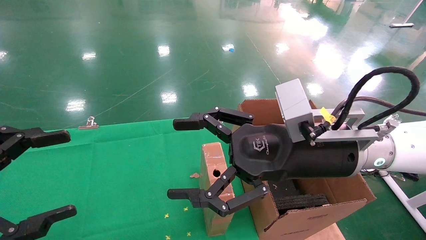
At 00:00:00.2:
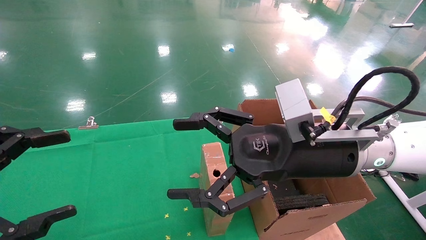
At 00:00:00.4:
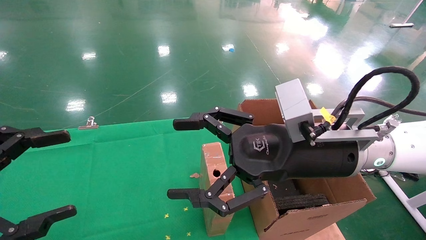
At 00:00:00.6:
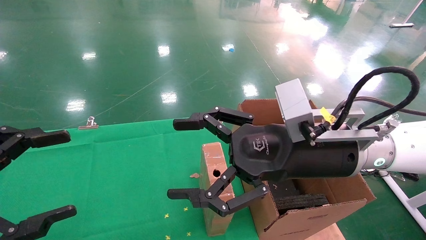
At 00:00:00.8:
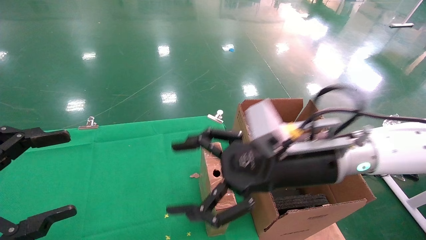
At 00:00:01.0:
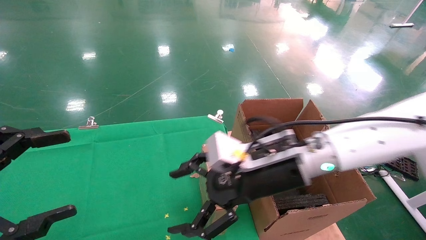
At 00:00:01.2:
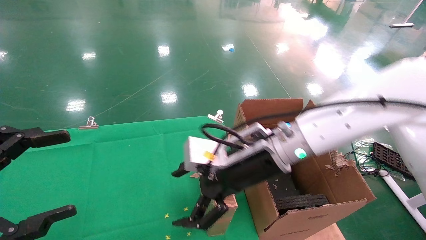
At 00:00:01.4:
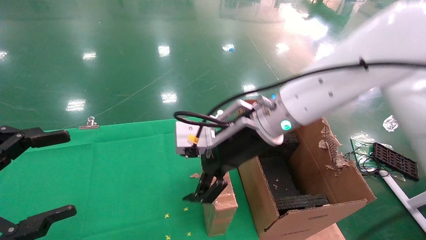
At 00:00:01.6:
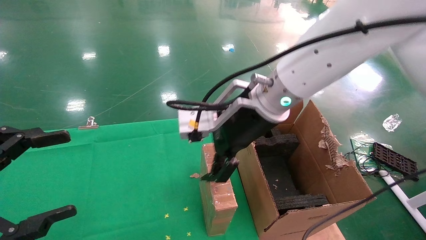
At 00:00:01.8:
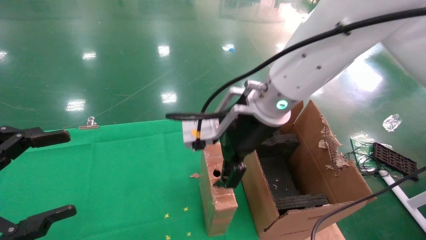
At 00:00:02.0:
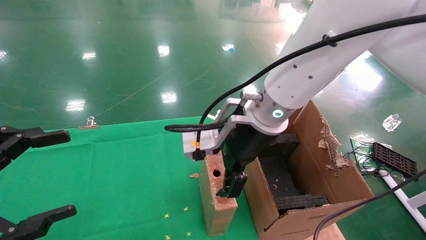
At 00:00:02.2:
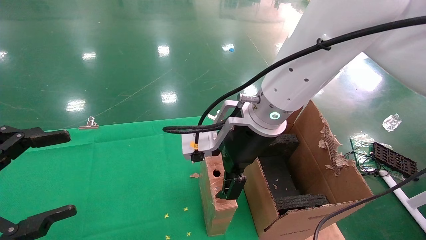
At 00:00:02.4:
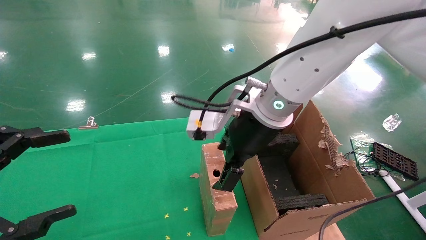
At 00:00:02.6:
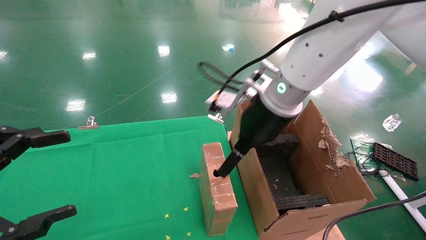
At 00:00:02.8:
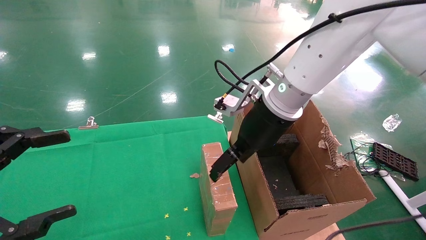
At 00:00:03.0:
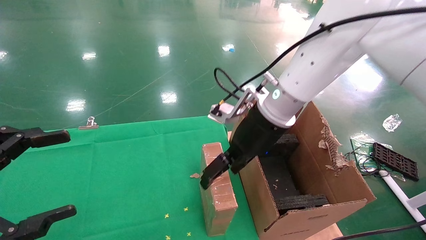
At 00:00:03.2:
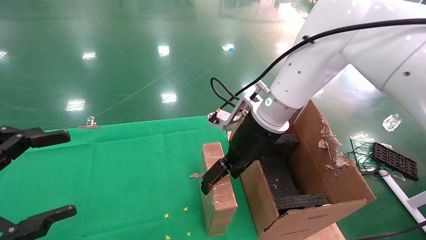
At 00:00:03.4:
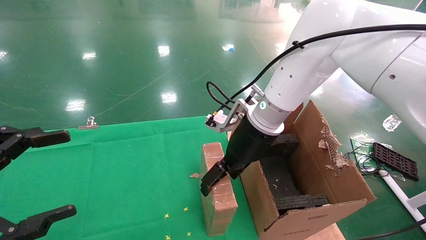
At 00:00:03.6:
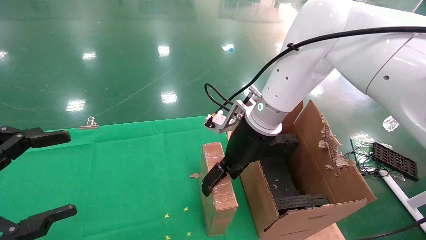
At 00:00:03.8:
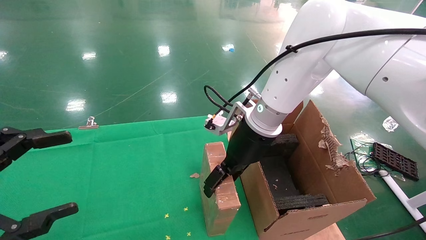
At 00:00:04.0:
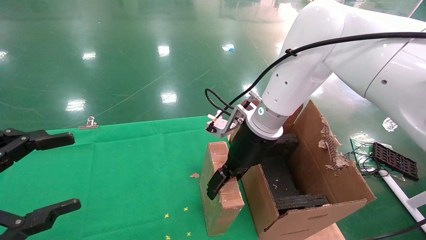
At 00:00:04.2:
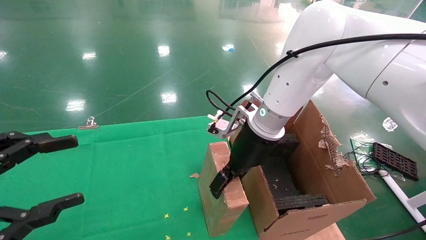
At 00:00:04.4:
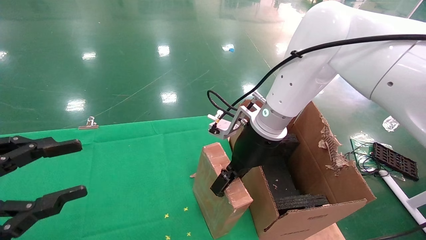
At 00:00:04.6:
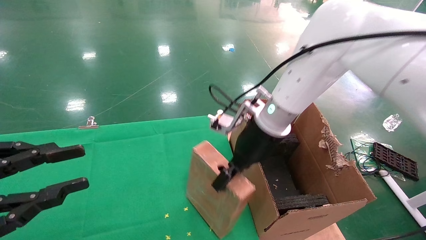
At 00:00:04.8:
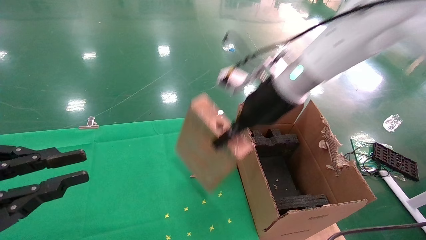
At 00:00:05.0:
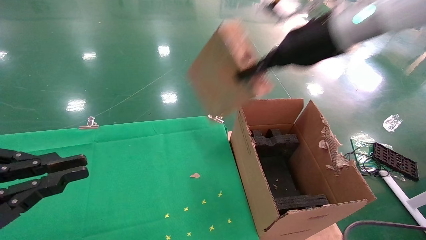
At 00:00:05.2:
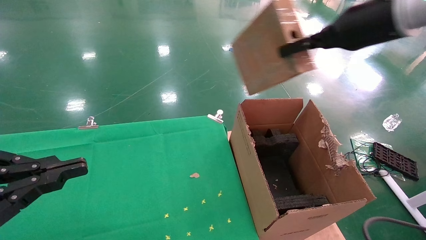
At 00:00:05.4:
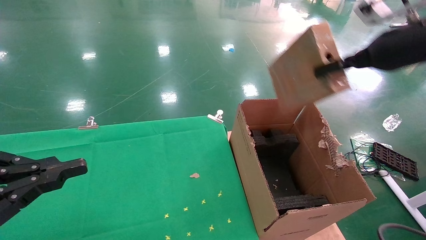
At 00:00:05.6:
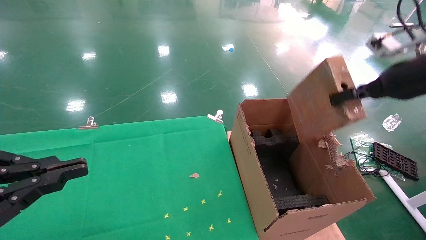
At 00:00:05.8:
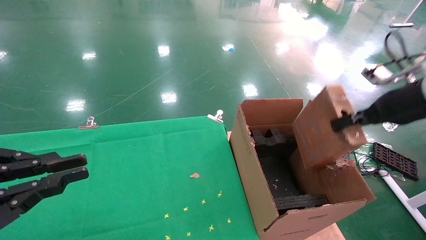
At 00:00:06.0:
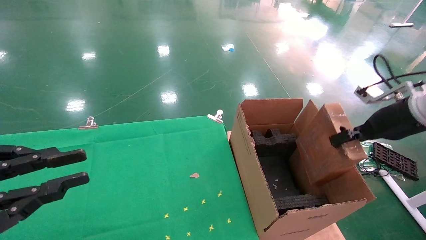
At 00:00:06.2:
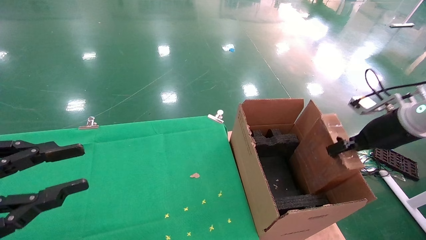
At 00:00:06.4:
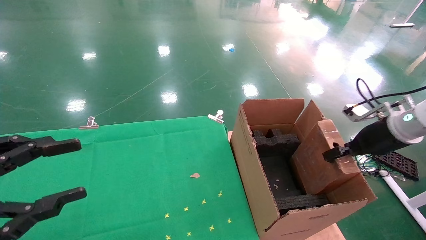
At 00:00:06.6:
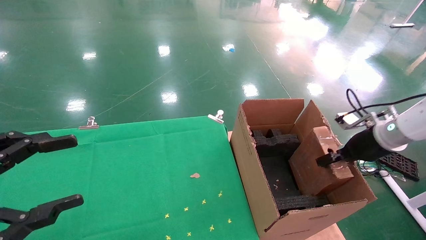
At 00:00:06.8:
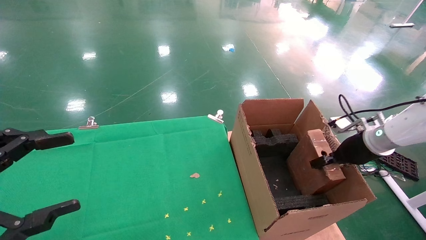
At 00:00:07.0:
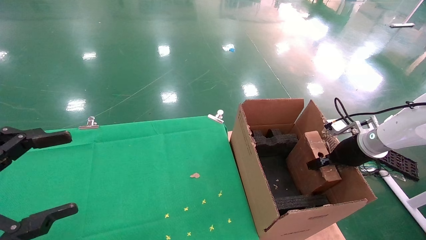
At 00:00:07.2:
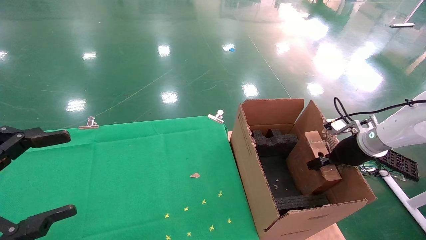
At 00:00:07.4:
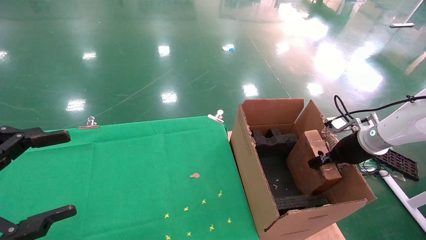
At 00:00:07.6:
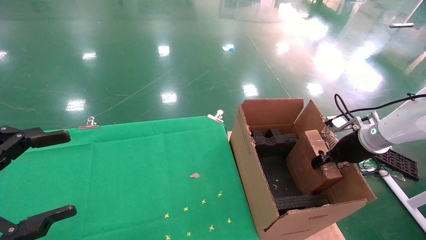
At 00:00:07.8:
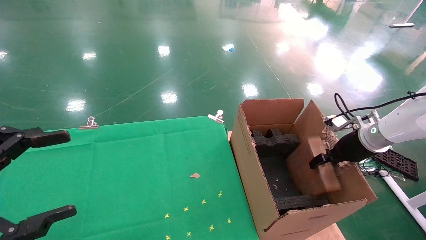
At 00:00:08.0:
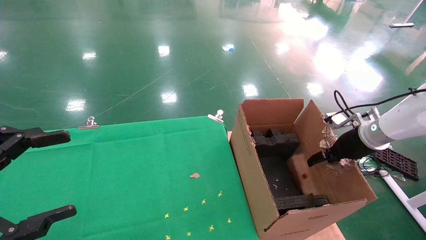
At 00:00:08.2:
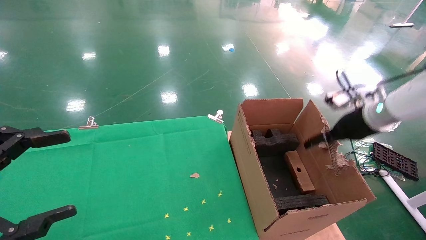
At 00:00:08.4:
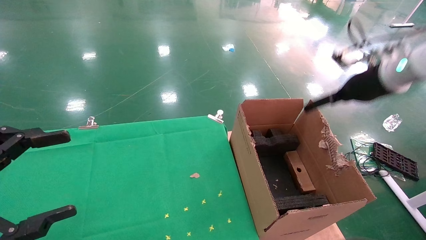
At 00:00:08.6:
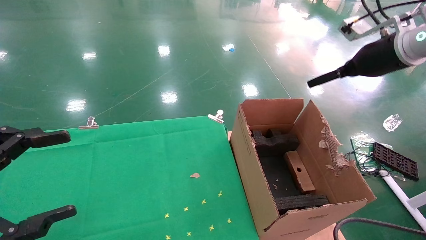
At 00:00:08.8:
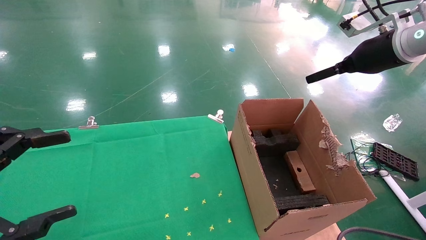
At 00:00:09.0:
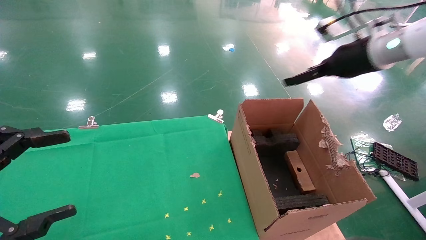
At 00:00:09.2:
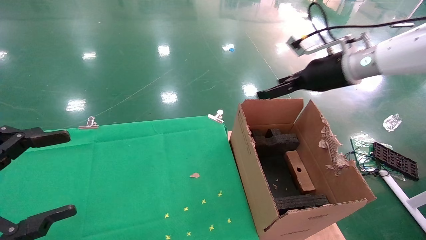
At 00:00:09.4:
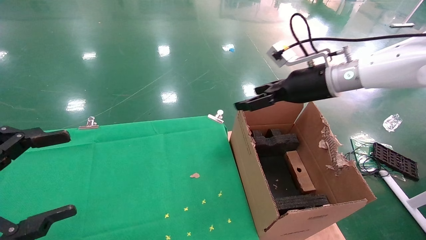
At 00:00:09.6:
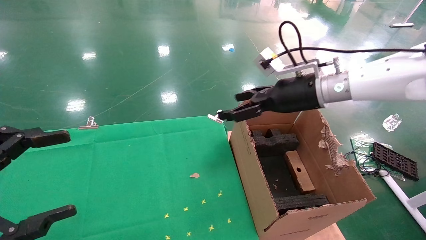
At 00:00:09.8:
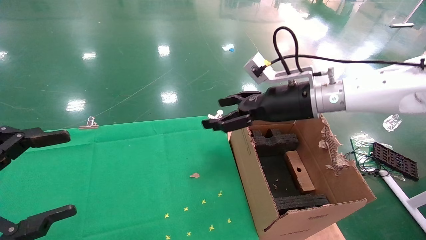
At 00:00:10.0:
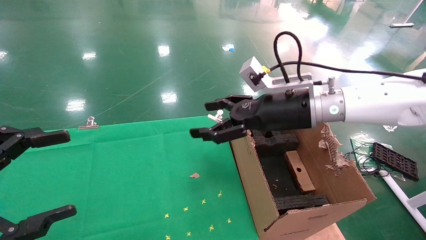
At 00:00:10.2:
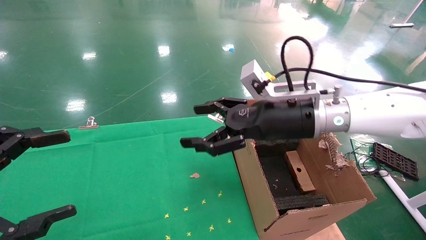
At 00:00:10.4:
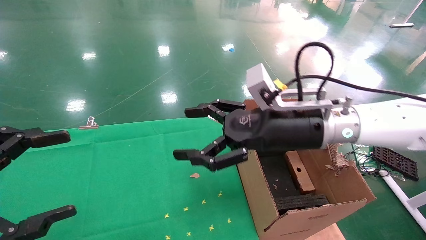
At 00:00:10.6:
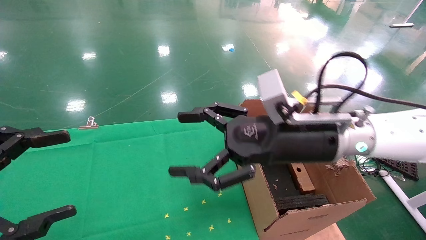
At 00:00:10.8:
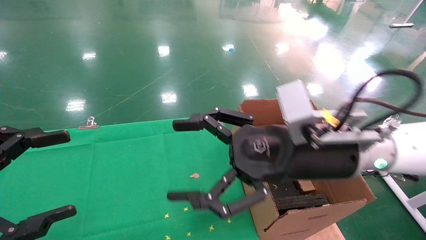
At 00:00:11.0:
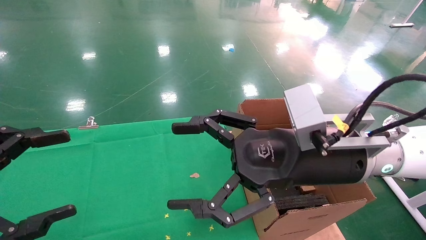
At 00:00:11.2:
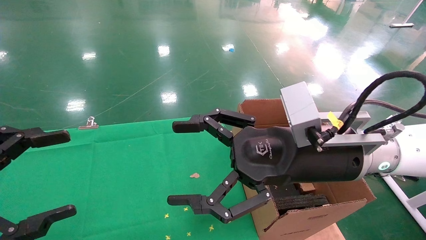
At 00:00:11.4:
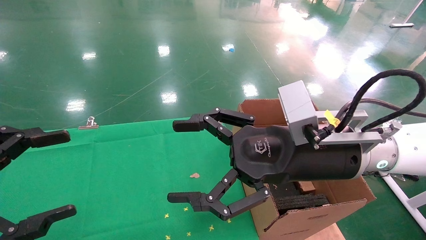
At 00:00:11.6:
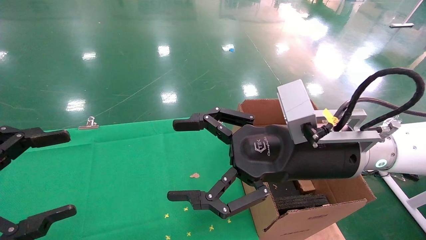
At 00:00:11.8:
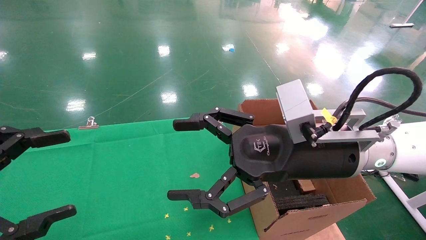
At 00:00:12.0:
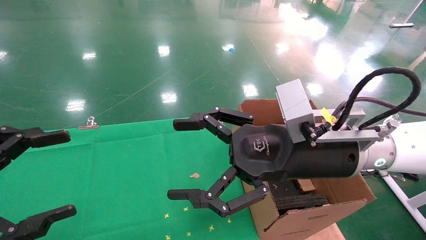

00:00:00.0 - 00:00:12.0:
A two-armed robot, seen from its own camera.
Task of the whole recording: using a robotic arm to pick up a cardboard box and palace it the carton.
Step, 00:00:00.8 - 00:00:04.6: Pick up the mouse and the power cord paper box.
Step, 00:00:04.8 - 00:00:08.0: Place the mouse and the power cord paper box into the container.
00:00:00.0 - 00:00:01.6: The right gripper is displaced to the left and forward by some 10 cm.
00:00:01.6 - 00:00:03.0: The right gripper shifts by about 5 cm.
00:00:03.0 - 00:00:04.4: The left gripper closes up, while the right gripper closes its fingers.
00:00:04.4 - 00:00:06.0: The right gripper heads to the right, covering about 30 cm, and closes. The left gripper closes its fingers.
00:00:06.0 - 00:00:07.6: The right gripper goes about 10 cm downward and forward, while the left gripper opens.
00:00:07.6 - 00:00:09.0: The right gripper moves upward and to the left, approximately 20 cm, and opens its fingers.
00:00:09.0 - 00:00:10.4: The right gripper moves to the left, downward and backward, about 20 cm.
00:00:10.4 - 00:00:12.0: The right gripper travels backward by approximately 5 cm.

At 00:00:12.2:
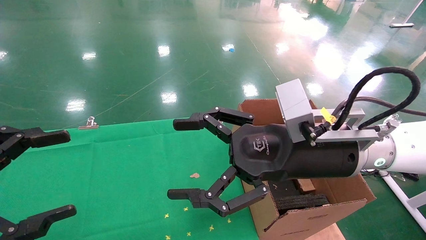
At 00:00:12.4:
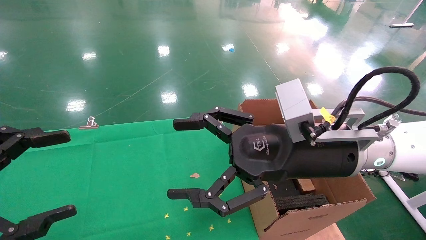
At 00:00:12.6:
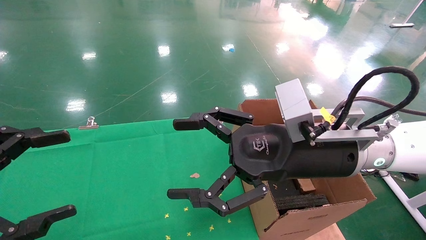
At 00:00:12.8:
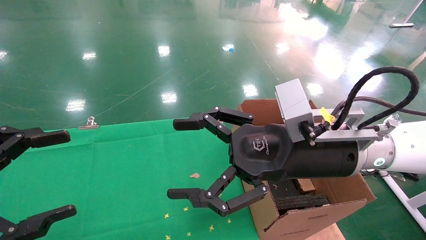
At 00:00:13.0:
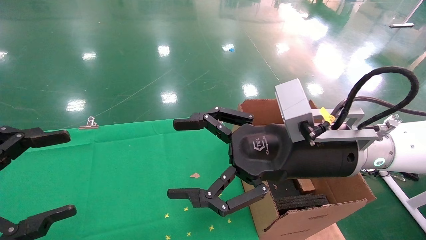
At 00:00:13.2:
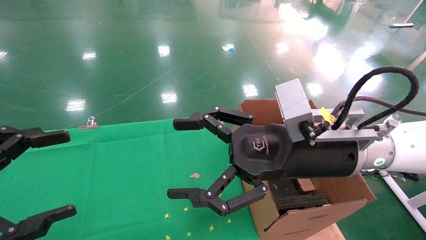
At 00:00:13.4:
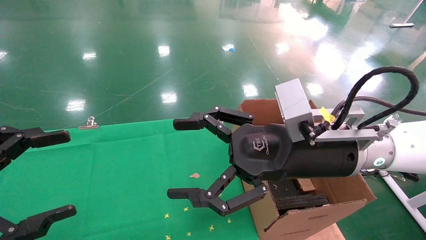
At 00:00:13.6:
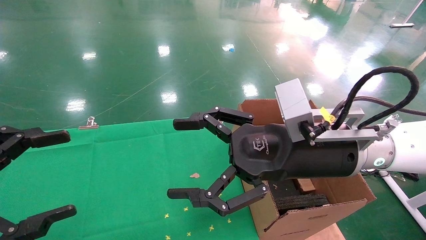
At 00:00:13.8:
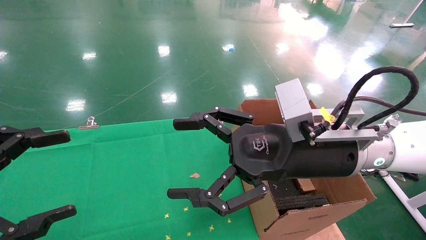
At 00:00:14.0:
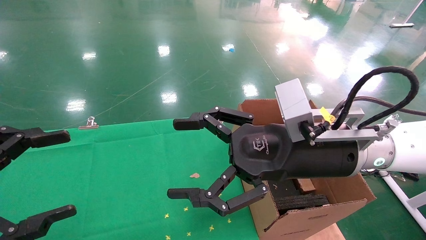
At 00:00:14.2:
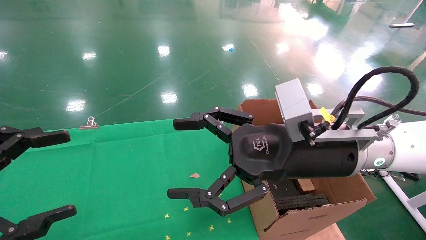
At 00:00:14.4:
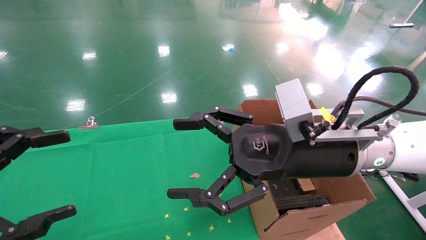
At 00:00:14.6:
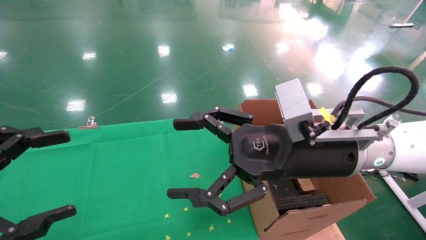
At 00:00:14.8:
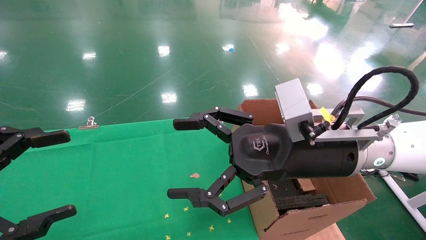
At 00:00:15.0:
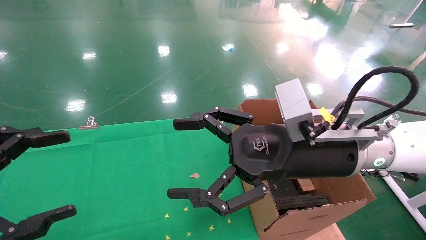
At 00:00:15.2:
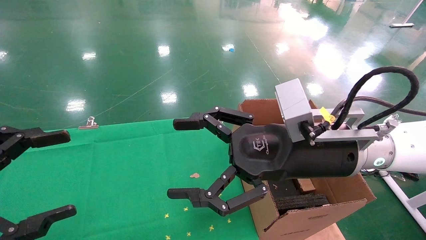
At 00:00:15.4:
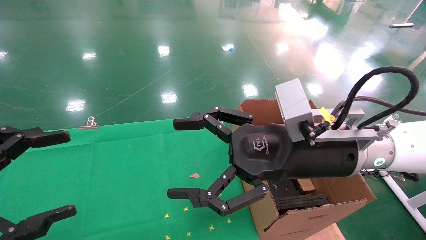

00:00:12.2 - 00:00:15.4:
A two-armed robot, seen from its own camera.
Task of the whole recording: using a robotic arm to pick up a cardboard box and palace it the carton.
00:00:12.2 - 00:00:15.4: The two grippers keep their place.
